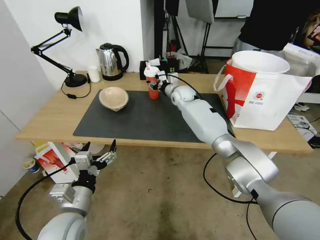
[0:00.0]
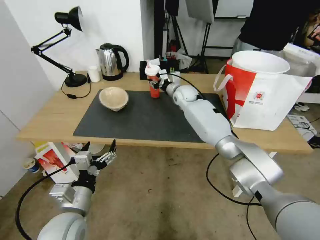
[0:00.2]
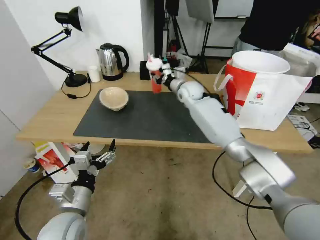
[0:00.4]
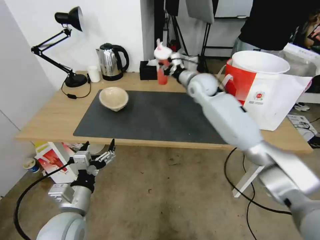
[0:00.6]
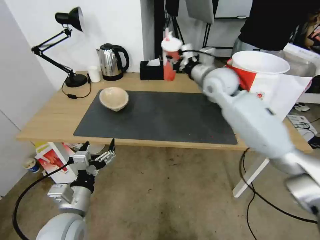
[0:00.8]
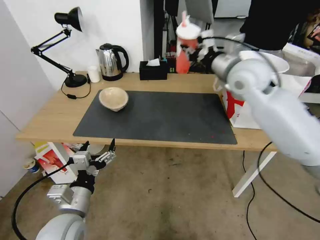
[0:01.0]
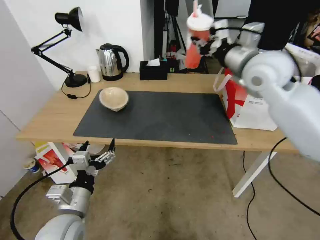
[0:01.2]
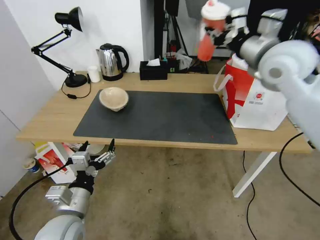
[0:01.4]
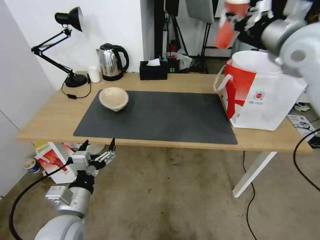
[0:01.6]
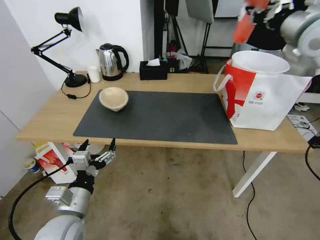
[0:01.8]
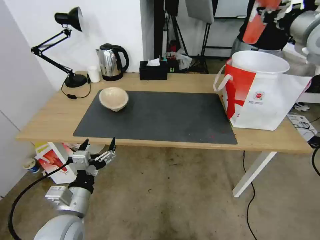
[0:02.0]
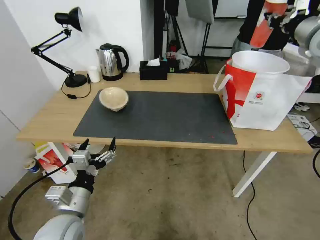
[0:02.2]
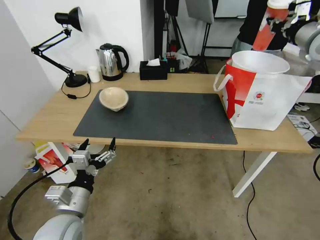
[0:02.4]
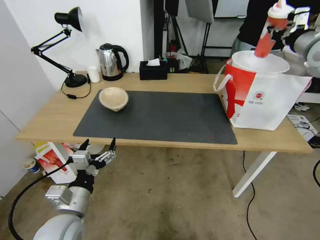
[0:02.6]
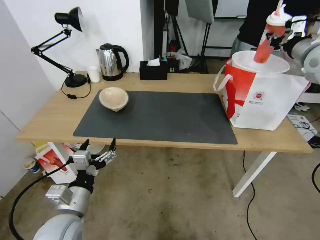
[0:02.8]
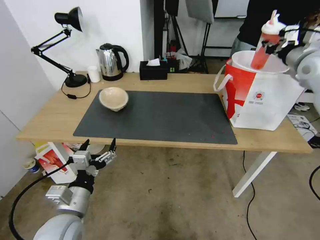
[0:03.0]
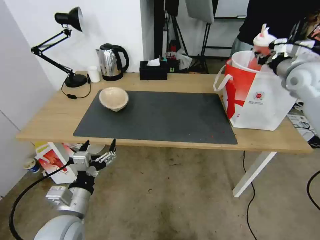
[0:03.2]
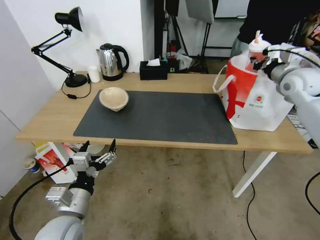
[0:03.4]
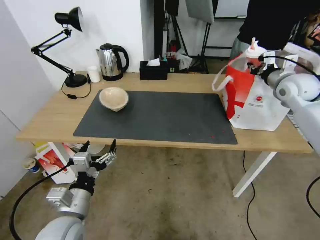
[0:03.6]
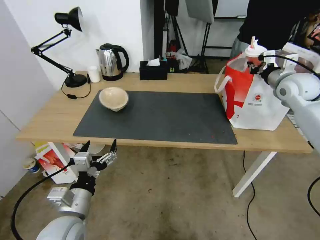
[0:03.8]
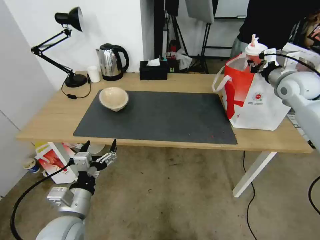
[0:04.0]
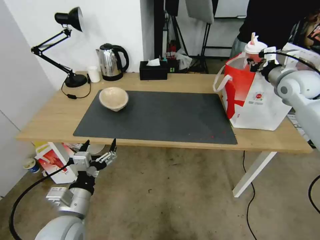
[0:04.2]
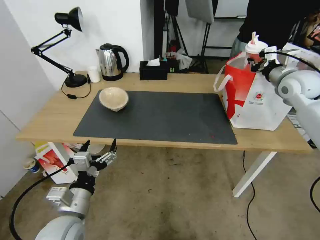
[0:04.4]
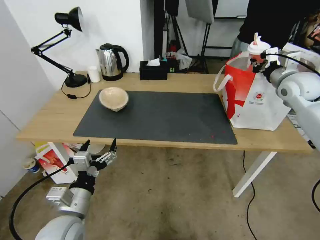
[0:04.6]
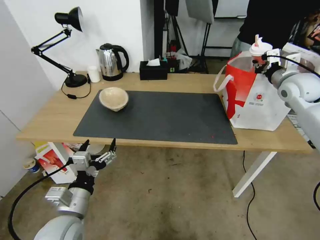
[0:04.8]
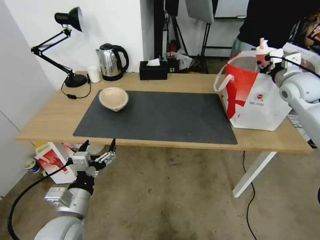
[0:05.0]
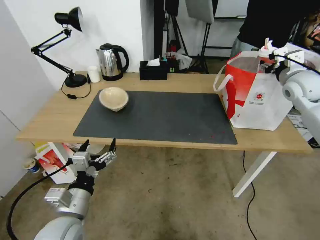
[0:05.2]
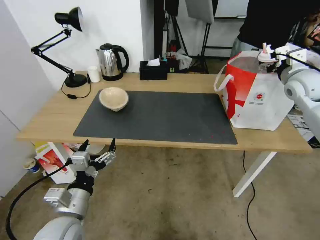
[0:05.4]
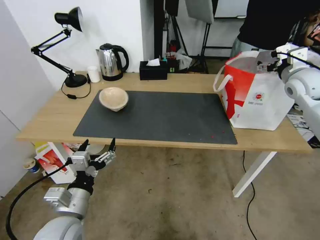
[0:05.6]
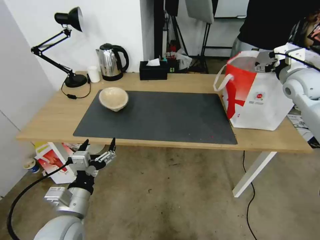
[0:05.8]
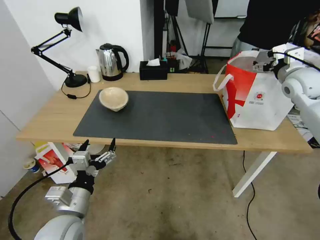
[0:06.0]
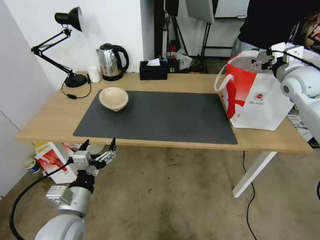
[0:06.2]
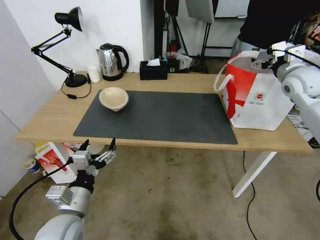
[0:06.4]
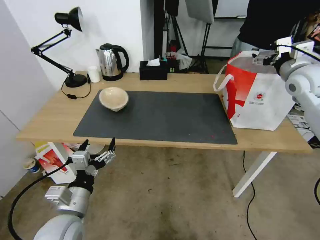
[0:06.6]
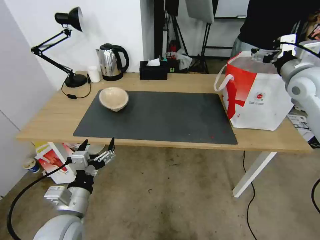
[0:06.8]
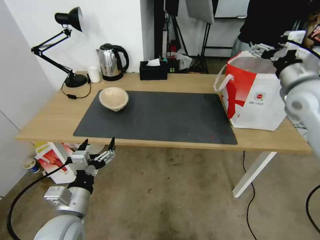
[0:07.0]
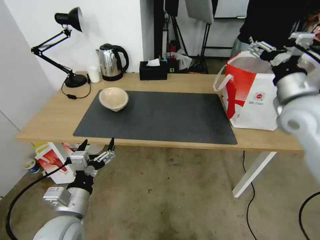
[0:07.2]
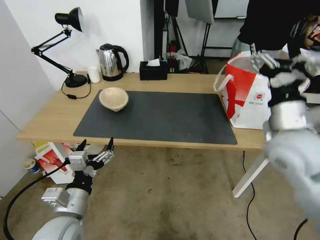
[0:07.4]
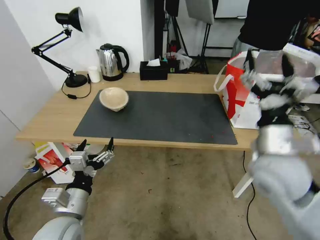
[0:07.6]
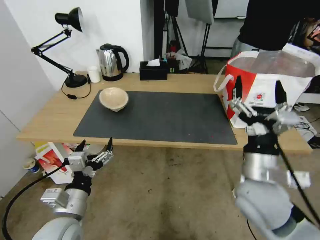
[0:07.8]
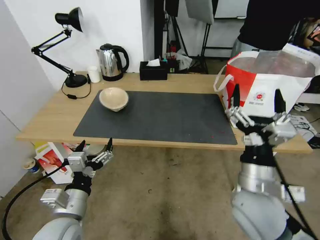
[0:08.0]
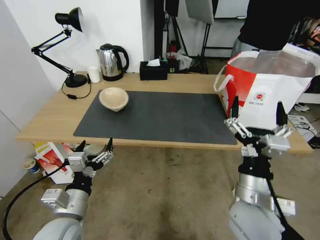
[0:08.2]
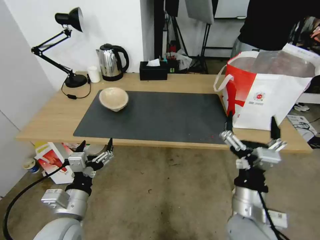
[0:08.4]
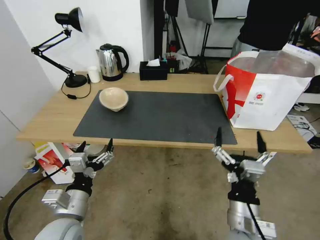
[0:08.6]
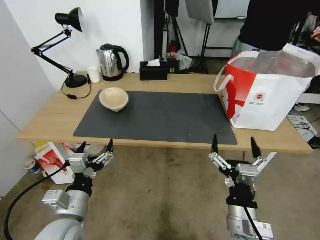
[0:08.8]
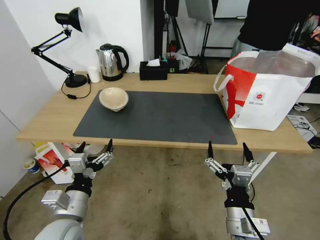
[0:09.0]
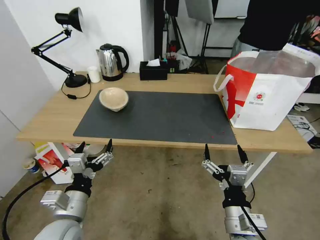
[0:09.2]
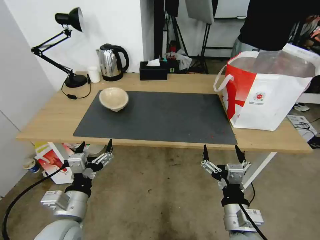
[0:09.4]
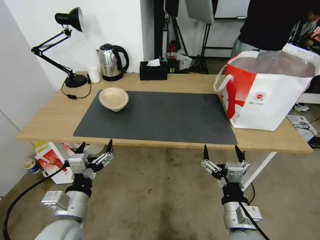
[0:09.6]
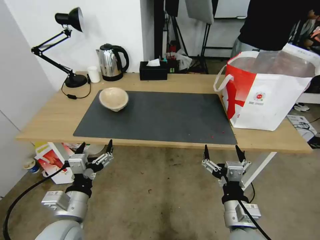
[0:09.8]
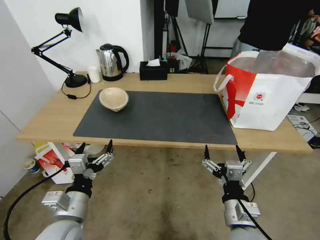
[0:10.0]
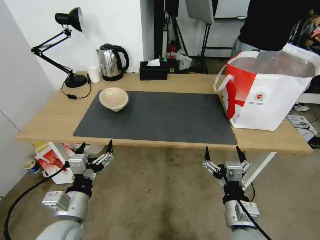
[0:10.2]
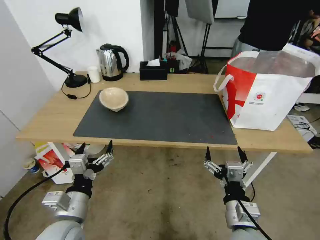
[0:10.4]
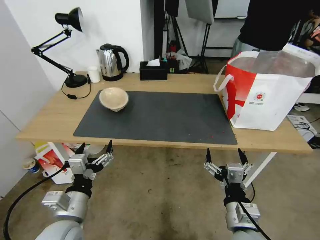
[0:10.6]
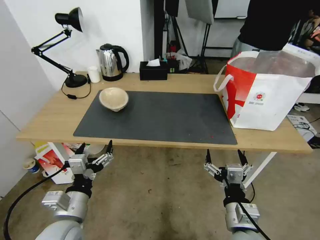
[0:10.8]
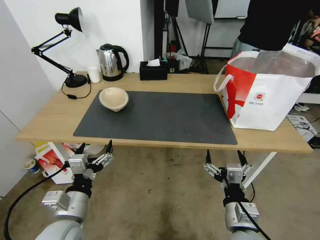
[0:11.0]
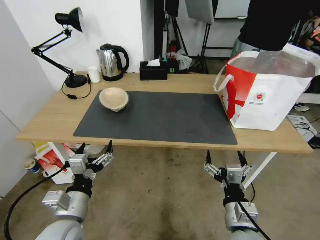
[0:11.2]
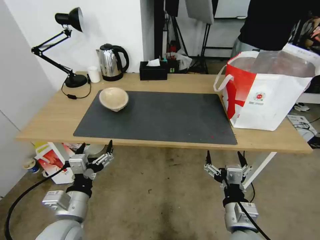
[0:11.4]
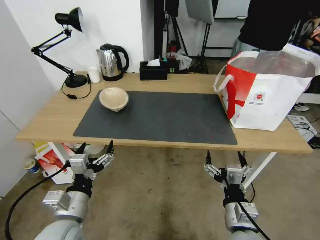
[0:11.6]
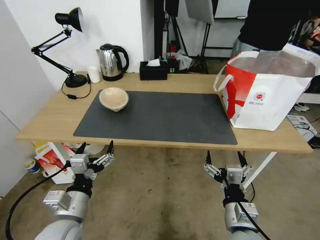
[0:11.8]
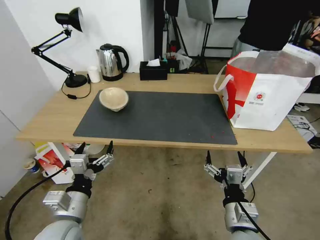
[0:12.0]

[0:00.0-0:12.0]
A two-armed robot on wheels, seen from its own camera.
Task of the whole recording: Pick up the trash from the table and place it into the takeout bag.
0:00.0 to 0:01.6: The right gripper moves upward, to the right and backward, some 40 cm, and closes.
0:01.6 to 0:03.0: The right gripper travels to the right, downward and forward by about 15 cm.
0:03.0 to 0:04.4: The right gripper heads downward, covering roughly 5 cm.
0:04.4 to 0:06.0: The right gripper opens its fingers.
0:06.0 to 0:07.6: The right gripper moves backward and to the left, about 30 cm.
0:07.6 to 0:09.0: The right gripper goes some 20 cm downward, backward and to the left.
0:09.0 to 0:10.4: The grippers stay close to where they were, moving slightly.
0:10.4 to 0:12.0: Both grippers stay about where they are.

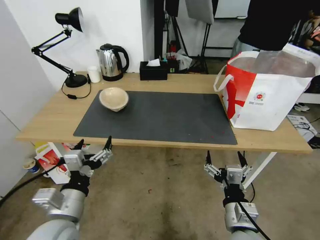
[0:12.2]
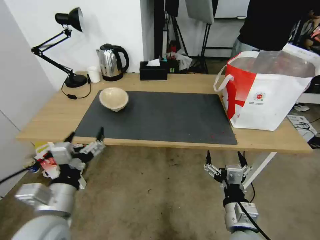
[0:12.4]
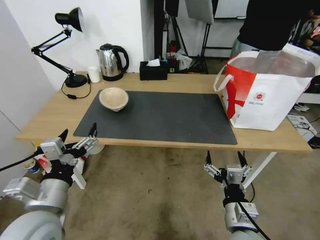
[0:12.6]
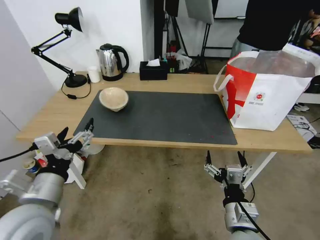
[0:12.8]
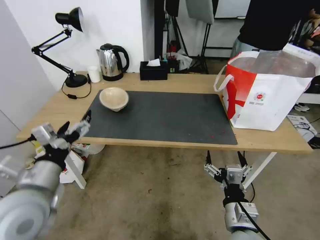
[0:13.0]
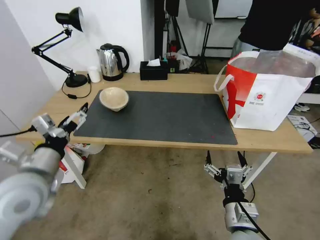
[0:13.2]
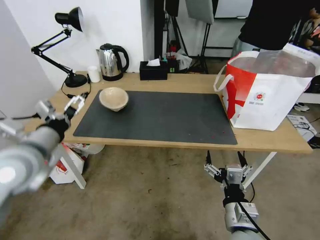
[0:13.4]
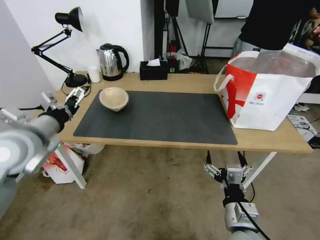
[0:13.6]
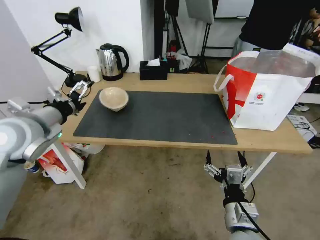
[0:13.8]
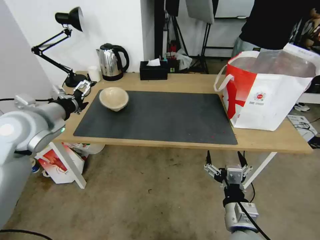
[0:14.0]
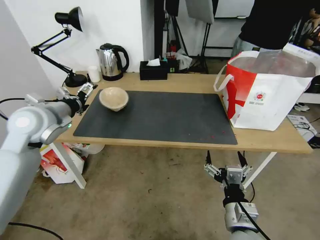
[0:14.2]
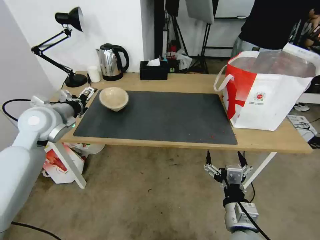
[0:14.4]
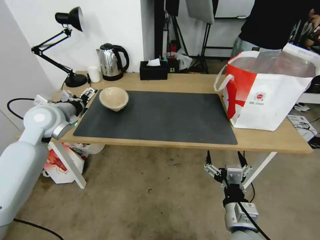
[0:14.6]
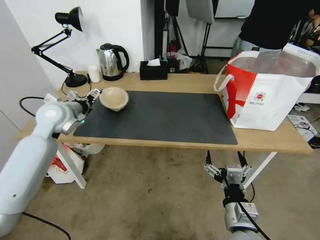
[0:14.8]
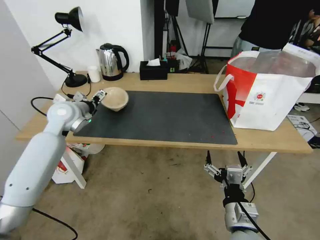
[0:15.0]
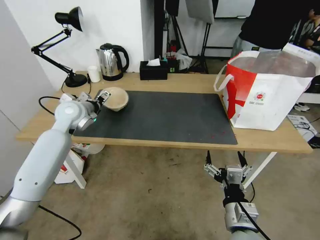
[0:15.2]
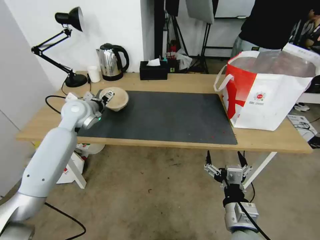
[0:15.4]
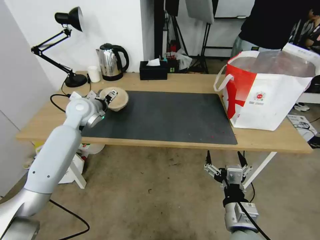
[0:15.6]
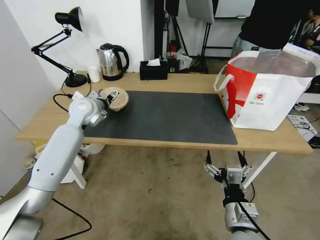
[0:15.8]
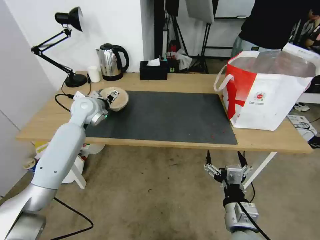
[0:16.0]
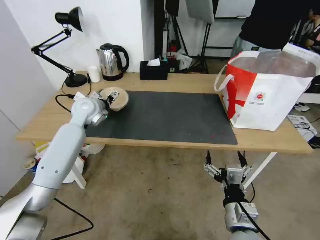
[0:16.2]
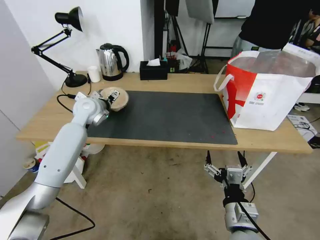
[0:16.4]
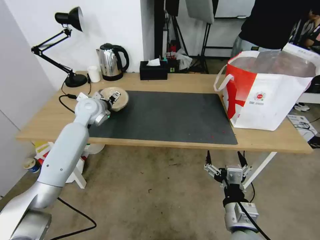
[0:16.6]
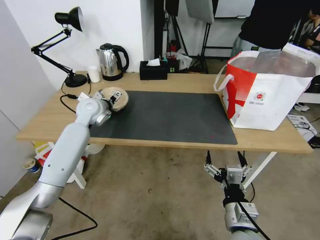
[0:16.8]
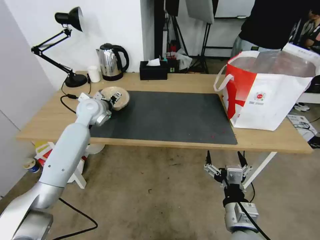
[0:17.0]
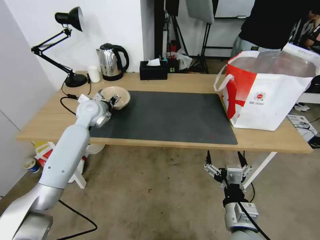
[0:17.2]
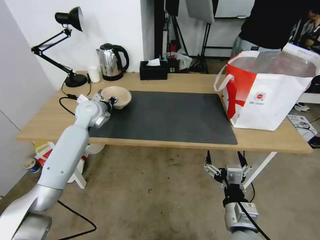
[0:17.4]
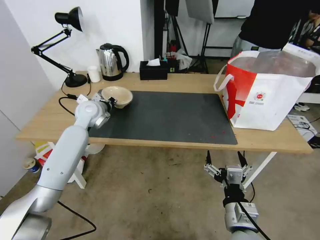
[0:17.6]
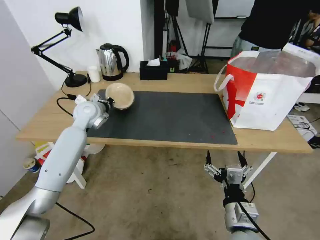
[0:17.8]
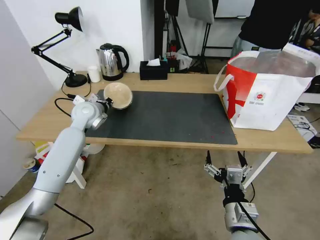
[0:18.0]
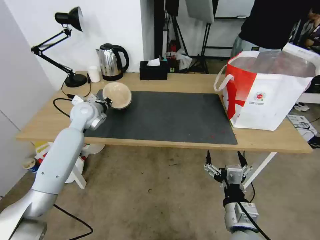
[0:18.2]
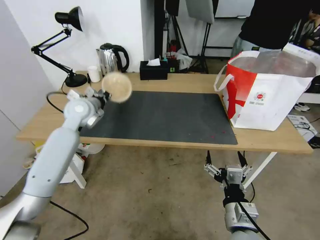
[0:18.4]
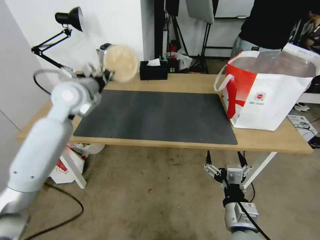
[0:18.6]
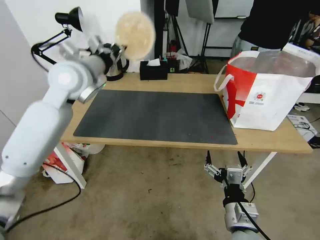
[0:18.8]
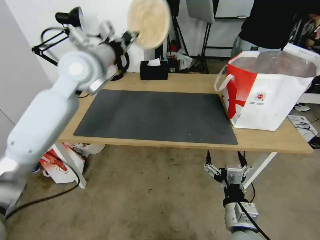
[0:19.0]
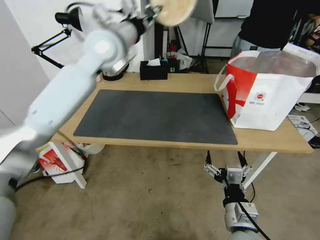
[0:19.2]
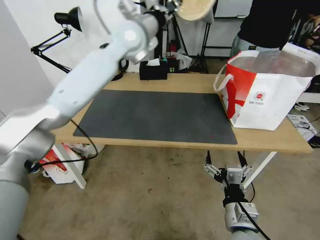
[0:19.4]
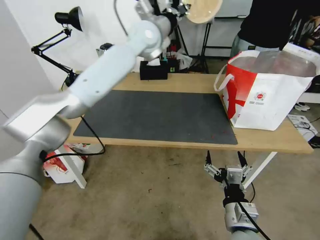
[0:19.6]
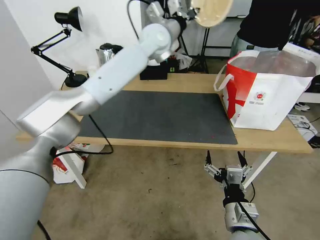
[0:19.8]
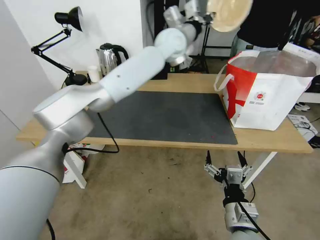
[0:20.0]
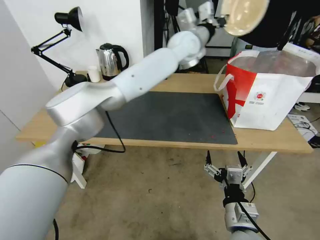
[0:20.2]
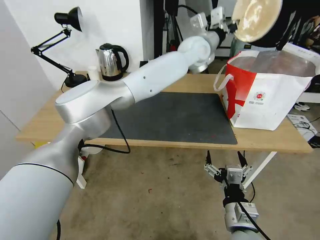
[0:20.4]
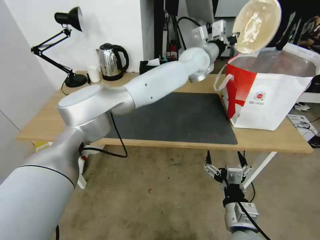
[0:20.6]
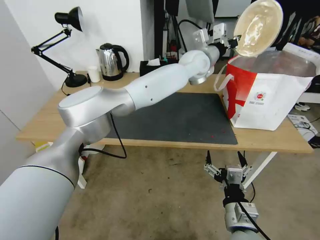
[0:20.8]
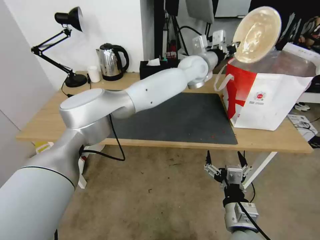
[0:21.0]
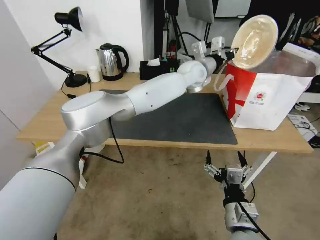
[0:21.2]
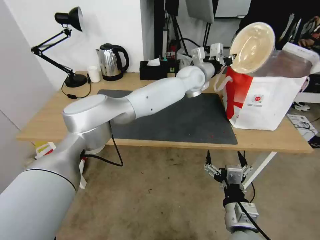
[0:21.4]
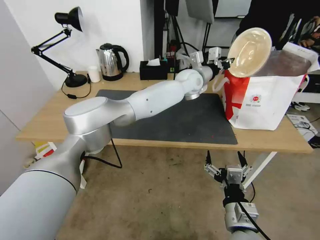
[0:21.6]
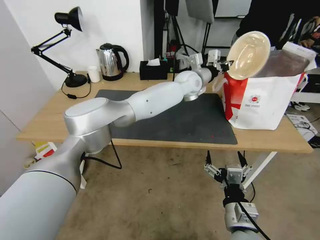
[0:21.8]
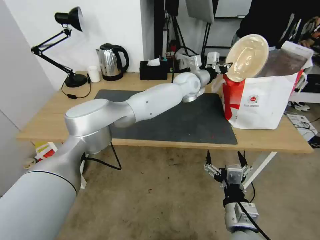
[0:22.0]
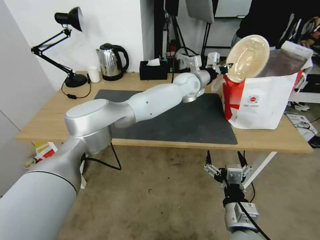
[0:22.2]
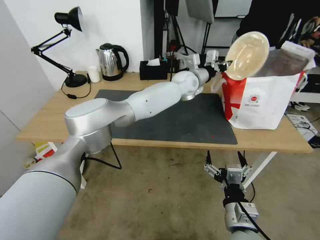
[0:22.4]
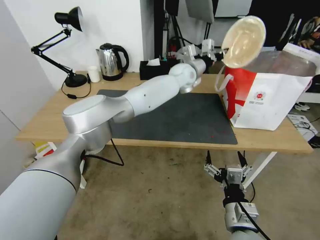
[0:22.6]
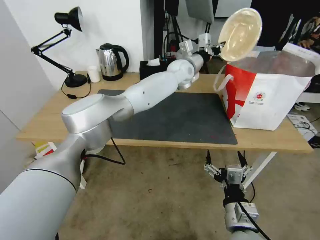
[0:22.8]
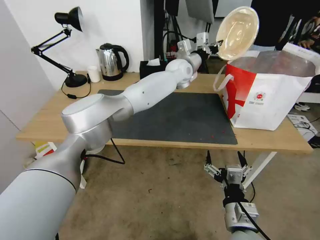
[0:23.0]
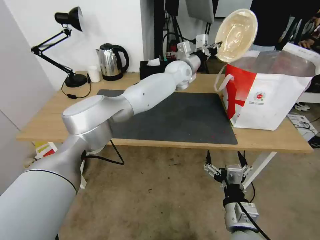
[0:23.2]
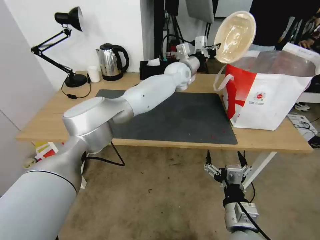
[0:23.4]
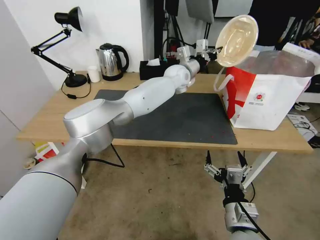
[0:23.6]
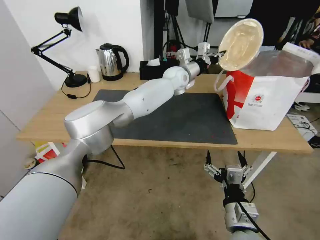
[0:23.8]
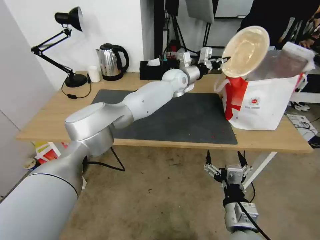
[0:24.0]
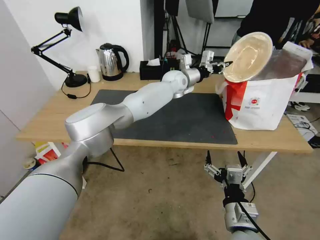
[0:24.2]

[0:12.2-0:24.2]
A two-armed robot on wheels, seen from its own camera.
Task of the whole recording: Pick up the trash from the table and place it into the takeout bag.
0:12.2 to 0:13.8: The left gripper heads forward, upward and to the left, covering about 25 cm.
0:13.8 to 0:15.2: The left gripper moves forward and downward, some 15 cm.
0:15.2 to 0:16.6: The left gripper ends up approximately 5 cm from where it was.
0:16.6 to 0:18.2: The left gripper closes.
0:18.2 to 0:19.8: The left gripper goes some 35 cm to the right and upward.
0:19.8 to 0:21.2: The left gripper is displaced to the right and downward by some 15 cm.
0:21.2 to 0:22.6: The left gripper changes place by some 5 cm.
0:22.6 to 0:24.2: The grippers make only small movements.
